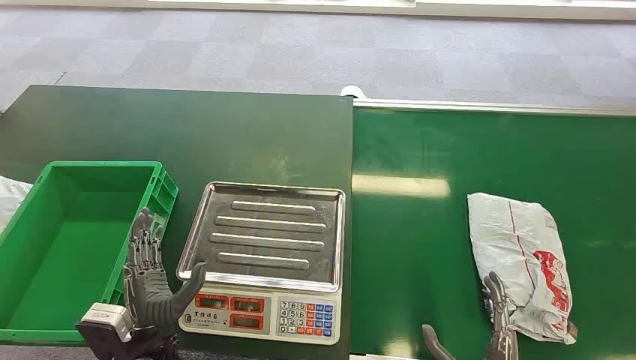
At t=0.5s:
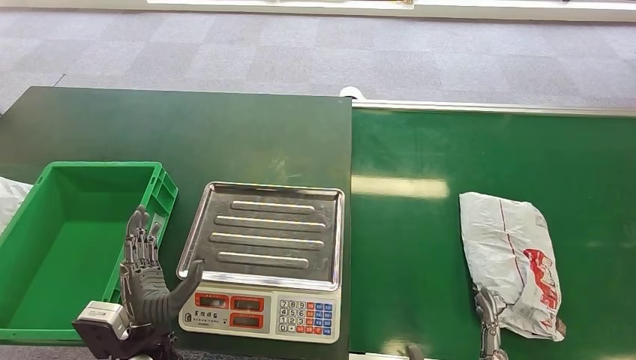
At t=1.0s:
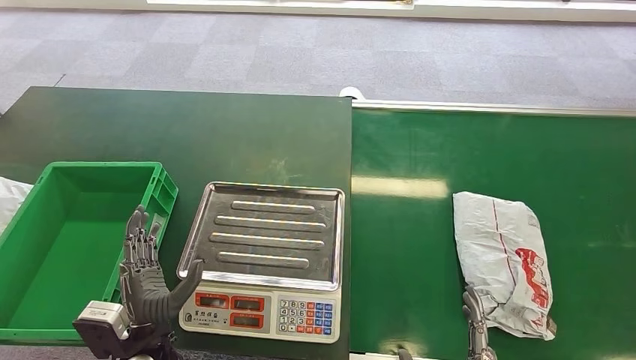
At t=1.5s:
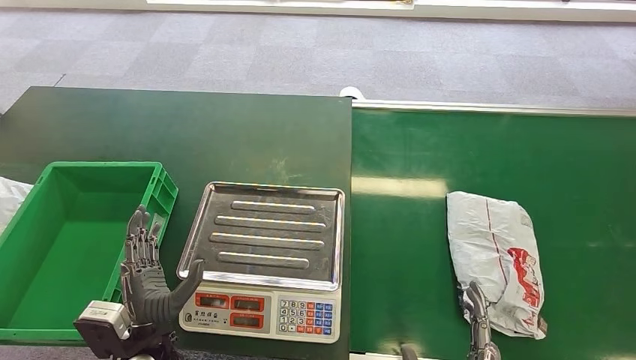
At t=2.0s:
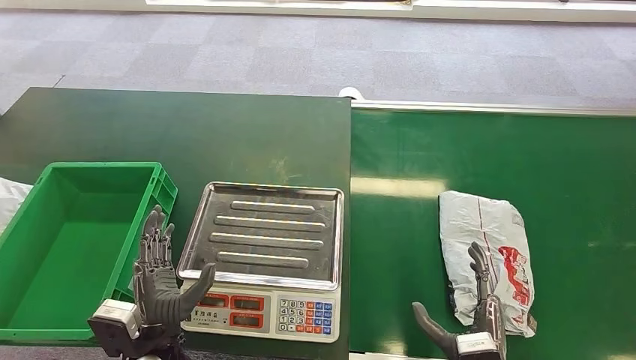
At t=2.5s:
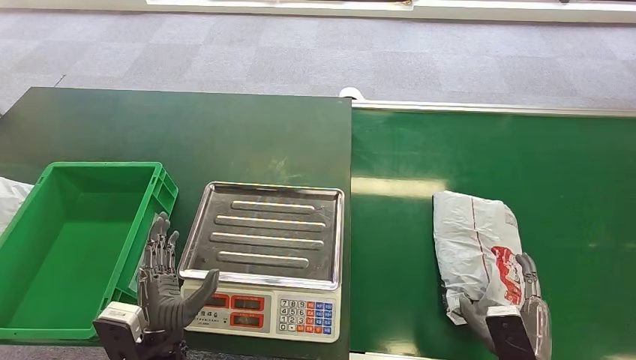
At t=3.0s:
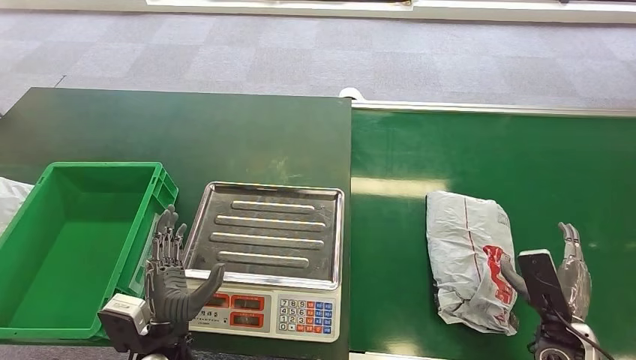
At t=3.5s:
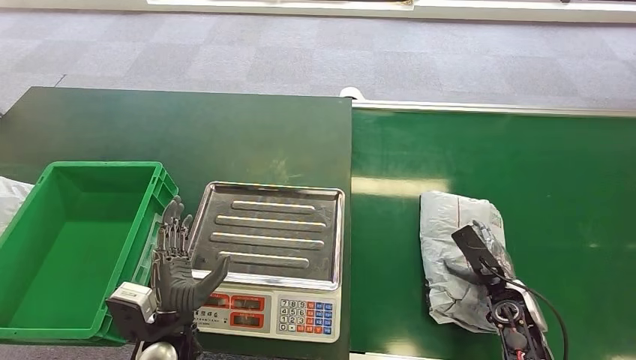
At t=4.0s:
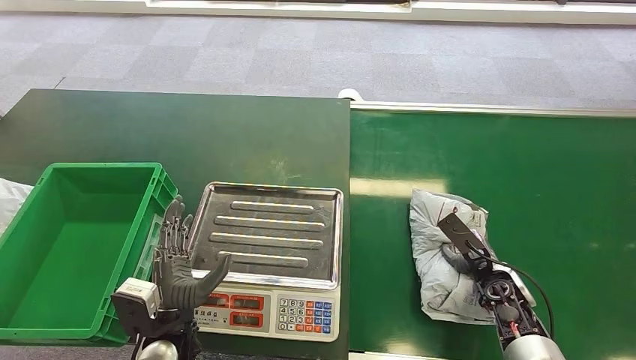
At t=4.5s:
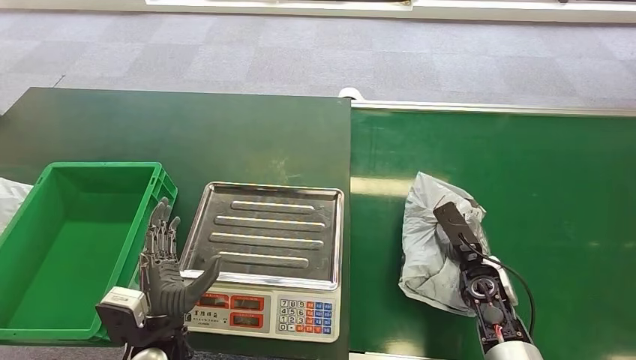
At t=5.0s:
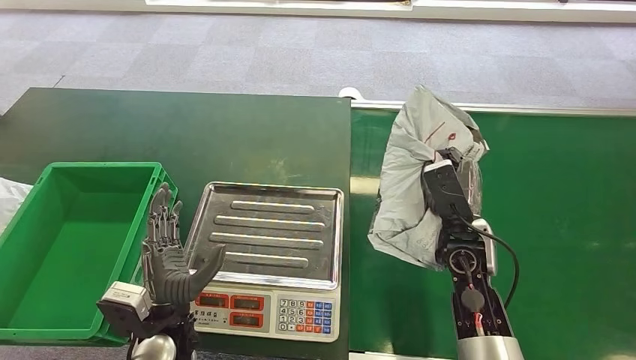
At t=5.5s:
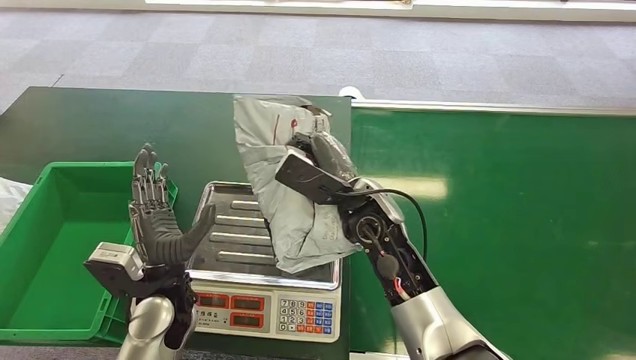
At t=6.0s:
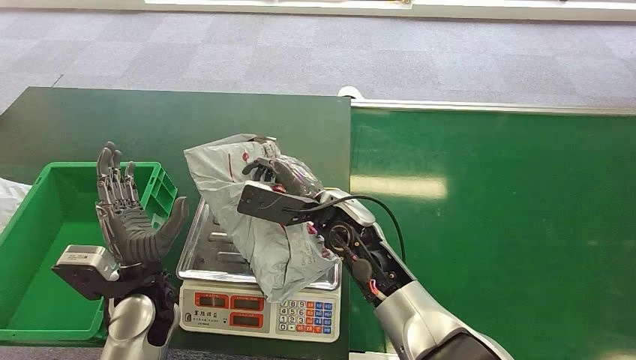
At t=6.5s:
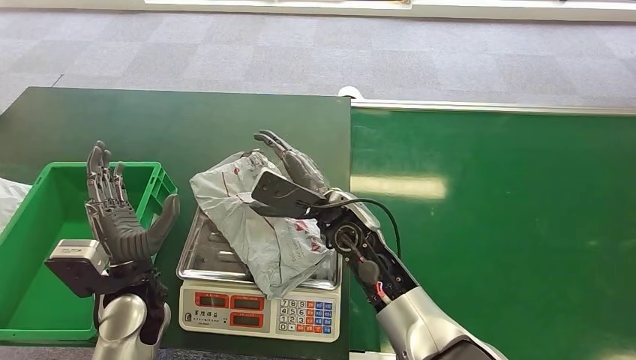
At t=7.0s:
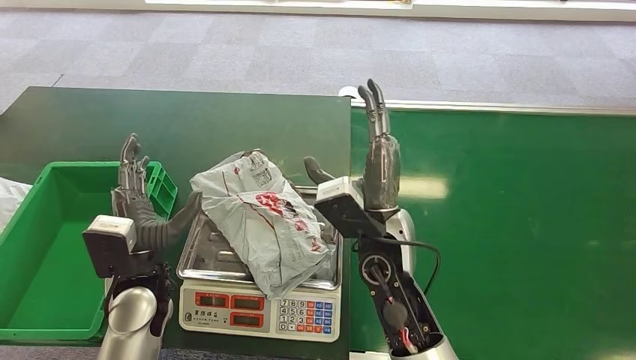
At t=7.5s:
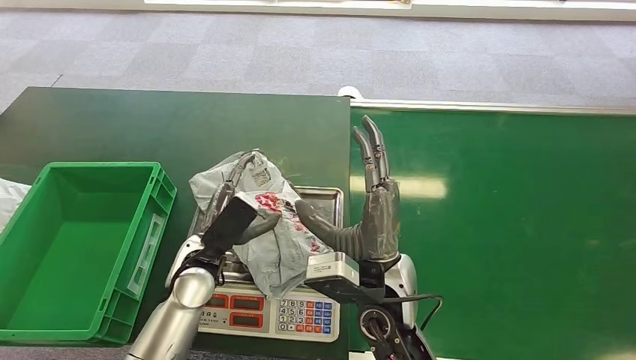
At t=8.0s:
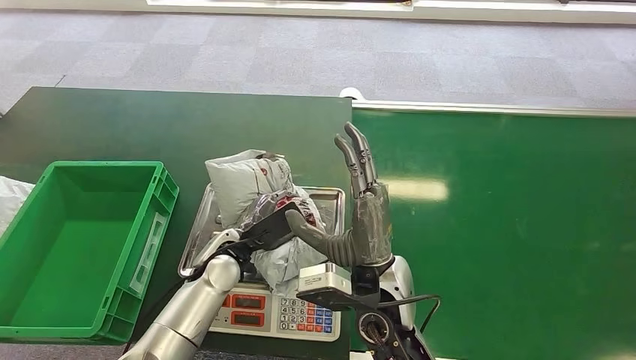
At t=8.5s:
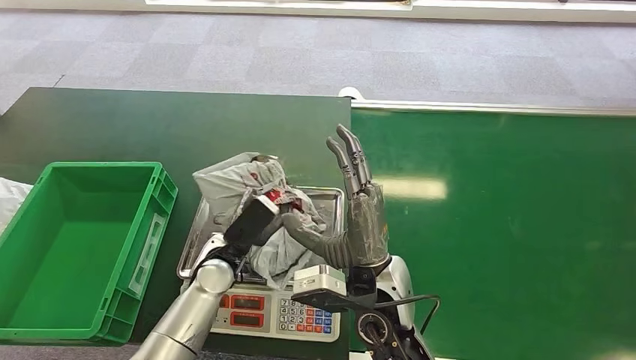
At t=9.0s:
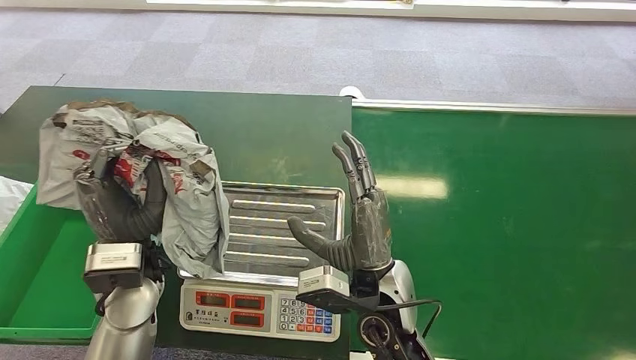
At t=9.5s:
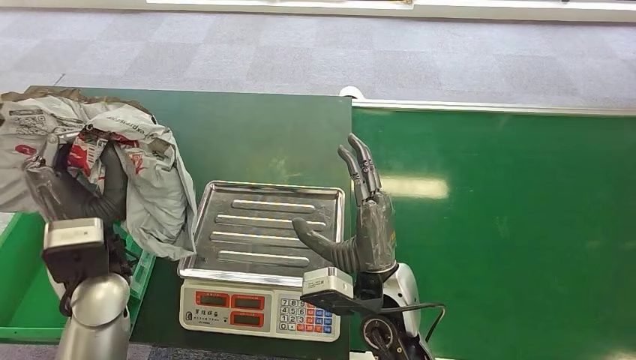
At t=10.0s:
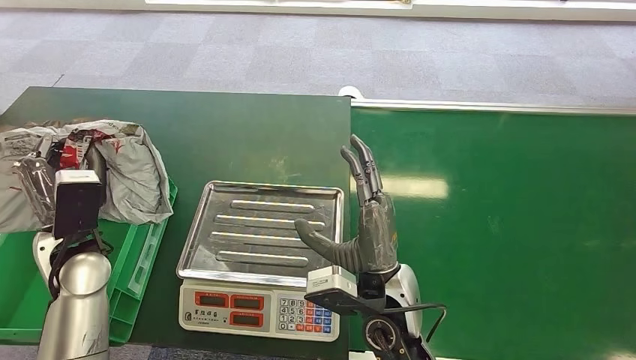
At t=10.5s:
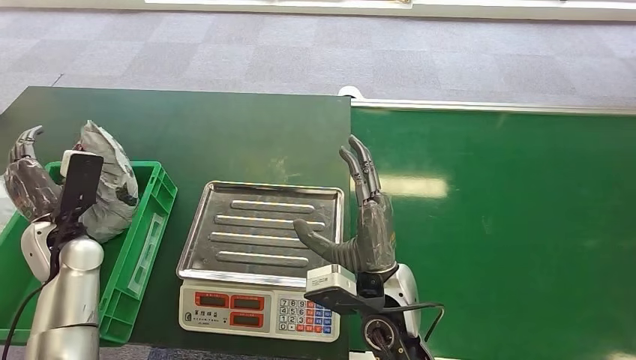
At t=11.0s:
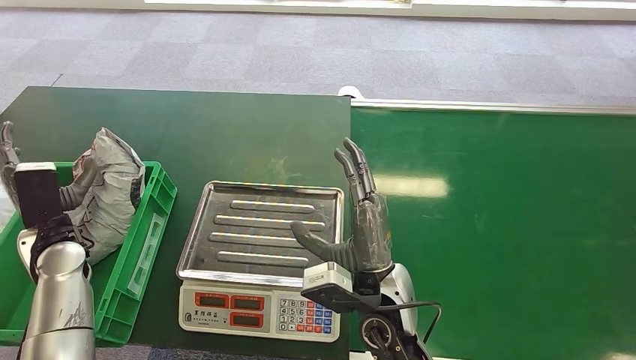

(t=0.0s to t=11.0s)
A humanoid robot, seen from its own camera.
Step, t=0.0s - t=4.5s: Pick up the package from the conveyor belt.
Step, t=5.0s - t=6.5s: Place the package onto the inbound machine.
Step, t=7.0s - t=9.5s: Pick up the package from the inbound machine.
Step, t=10.0s - t=11.0s: Place the package into the parcel locker.
t=2.0s - t=3.5s: The right hand heads forward and to the right, covering some 20 cm.
t=5.5s - t=7.5s: The left hand shifts by some 5 cm; the right hand shifts some 10 cm backward.
t=9.0s - t=11.0s: The left hand moves to the left, approximately 20 cm.
